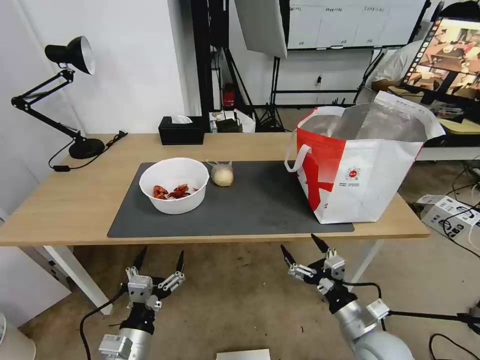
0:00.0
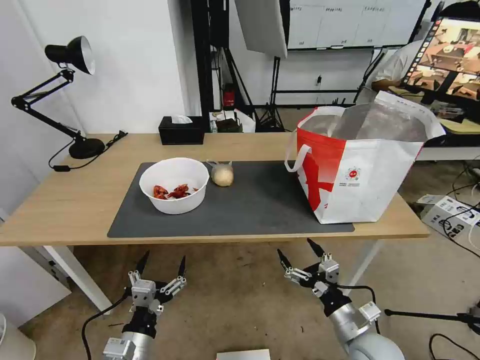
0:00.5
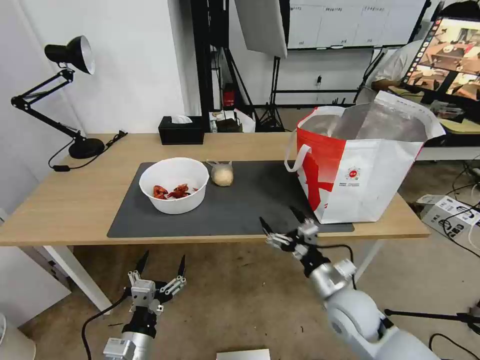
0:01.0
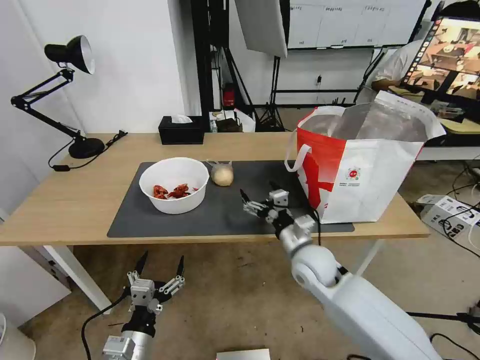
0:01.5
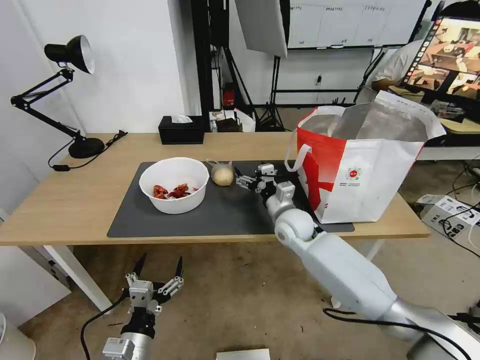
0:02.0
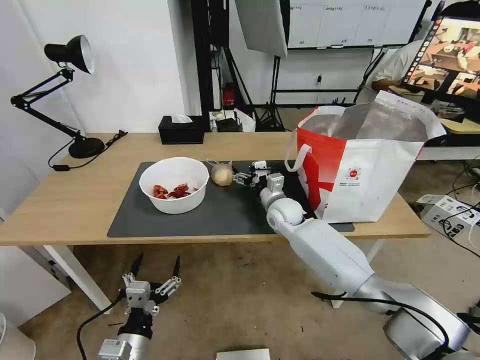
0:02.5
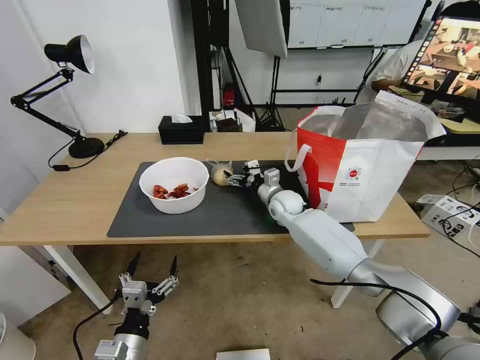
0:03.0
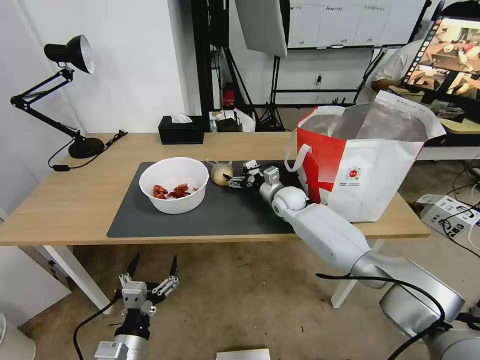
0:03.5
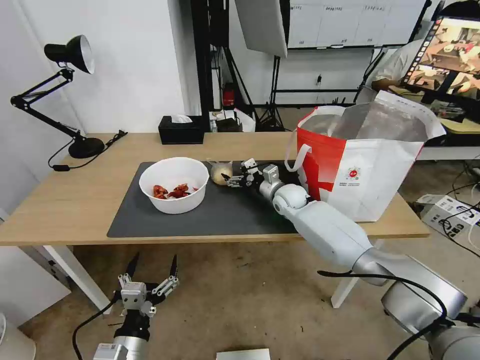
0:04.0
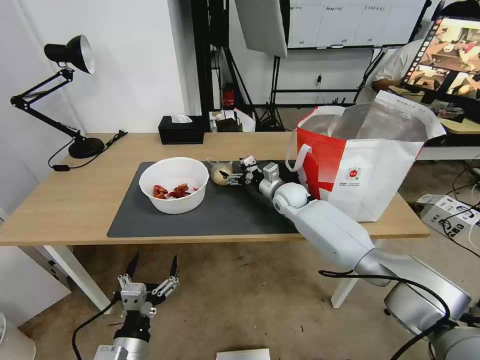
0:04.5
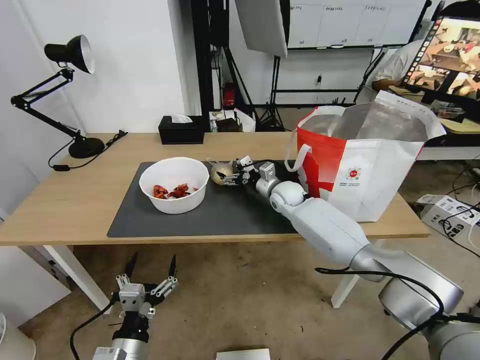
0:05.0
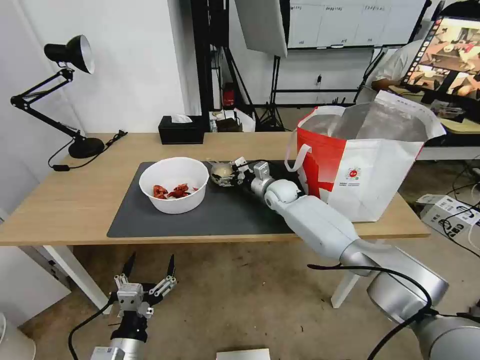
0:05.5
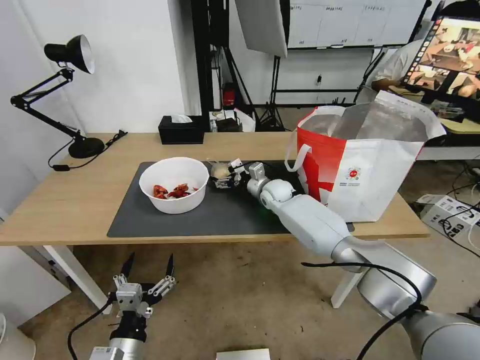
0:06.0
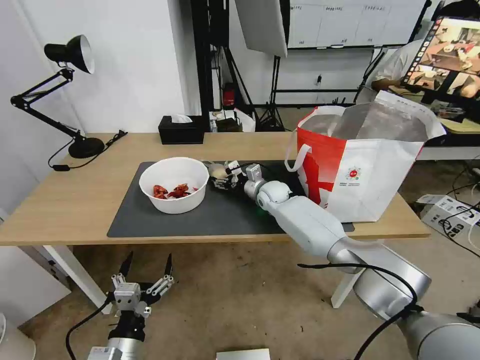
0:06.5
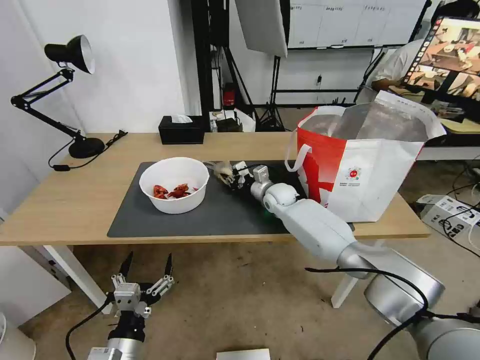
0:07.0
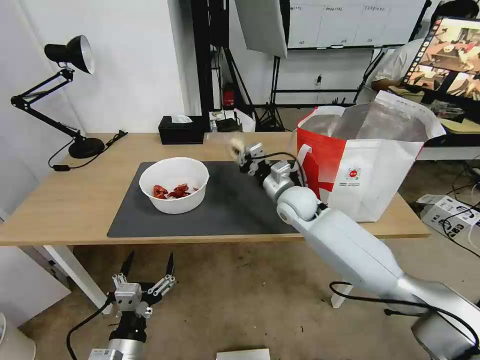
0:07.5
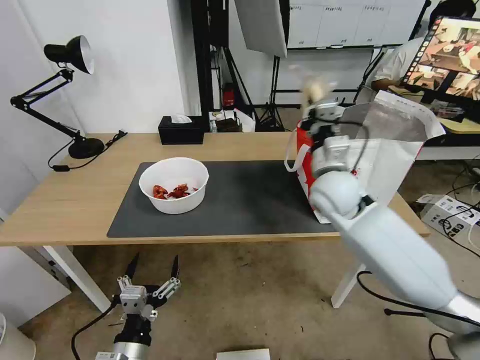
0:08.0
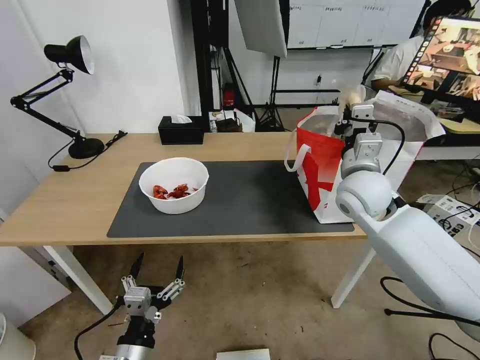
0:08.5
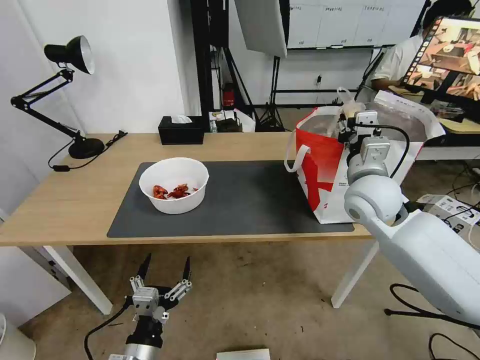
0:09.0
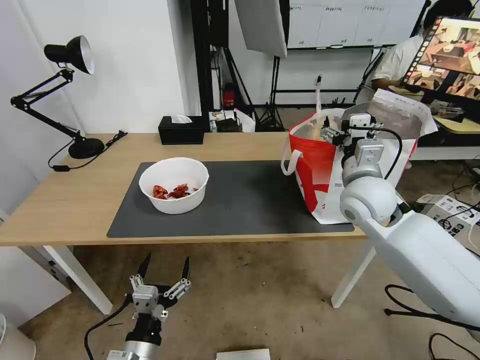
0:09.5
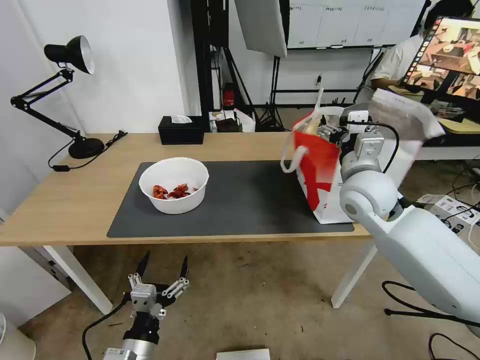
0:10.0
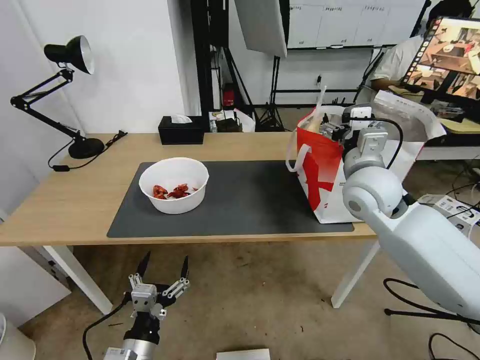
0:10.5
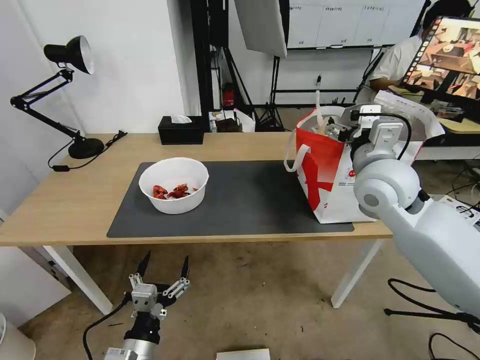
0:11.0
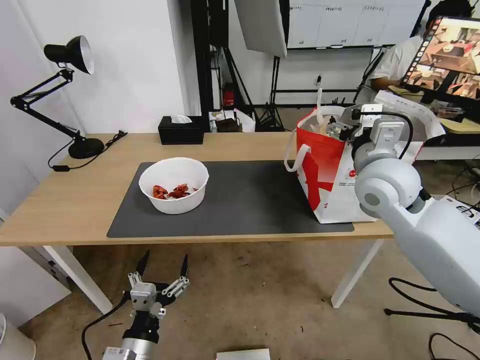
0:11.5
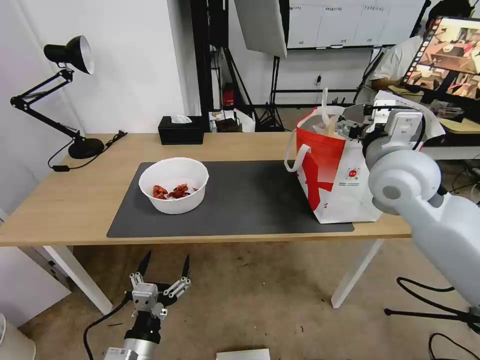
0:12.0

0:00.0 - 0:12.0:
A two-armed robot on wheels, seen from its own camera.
Task of the whole recording: Pick up the trash from the table and place it into the takeout bag.
0:00.0 - 0:02.0: The right gripper is displaced forward and to the left by roughly 30 cm.
0:02.0 - 0:04.0: The right gripper shifts some 10 cm forward.
0:04.0 - 0:06.0: The grippers make only small movements.
0:06.0 - 0:08.0: The right gripper moves upward, backward and to the right, roughly 25 cm, and closes.
0:08.0 - 0:10.0: The right gripper changes place by about 5 cm, and opens its fingers.
0:10.0 - 0:12.0: The right gripper shifts some 5 cm upward.

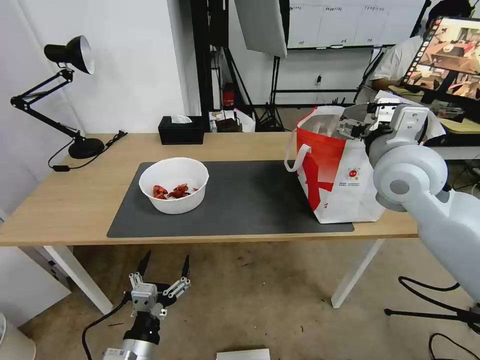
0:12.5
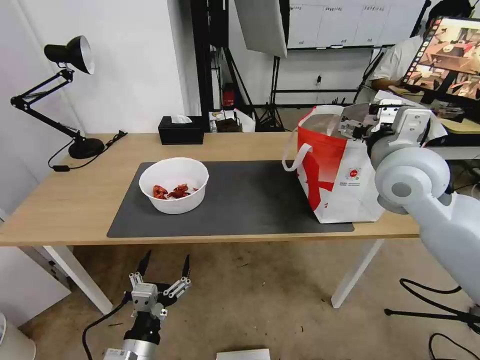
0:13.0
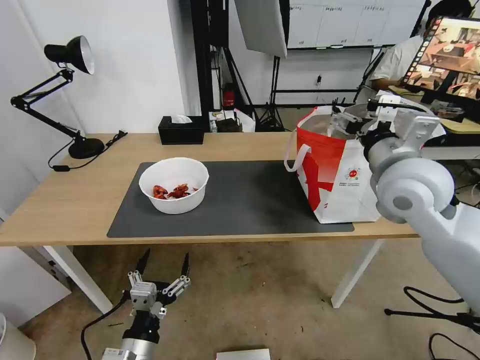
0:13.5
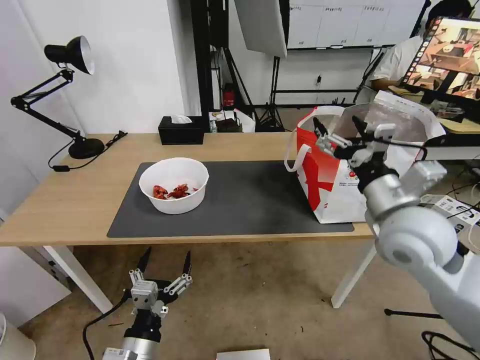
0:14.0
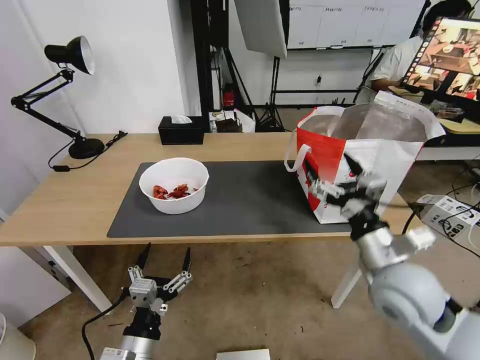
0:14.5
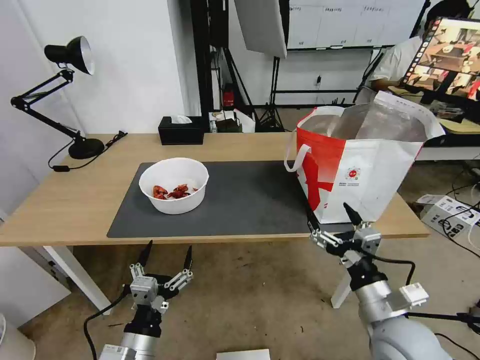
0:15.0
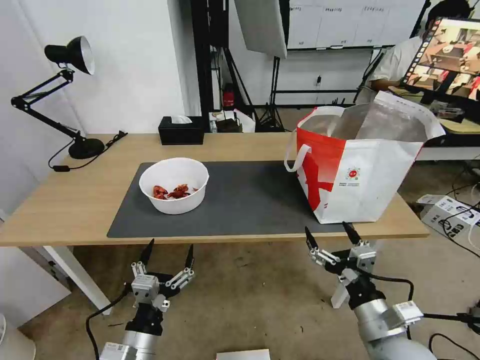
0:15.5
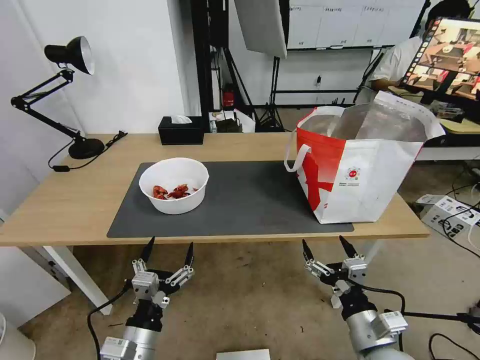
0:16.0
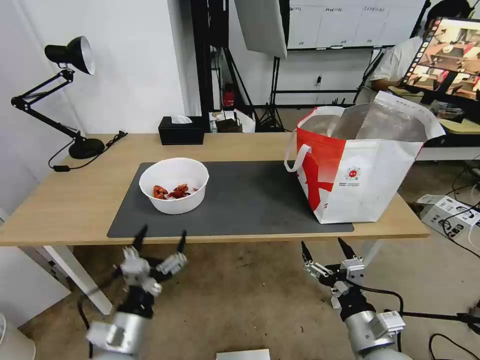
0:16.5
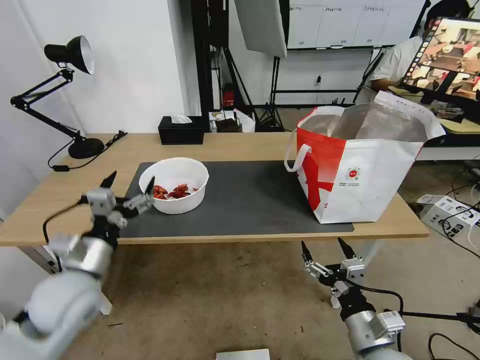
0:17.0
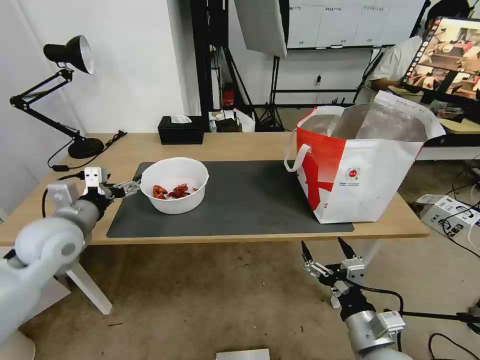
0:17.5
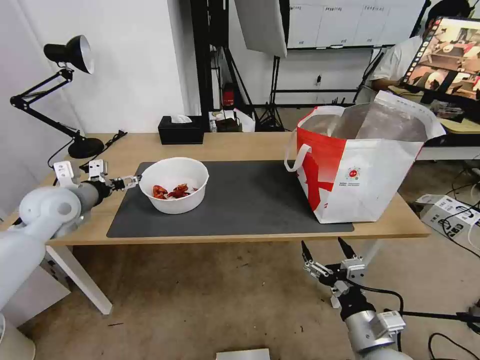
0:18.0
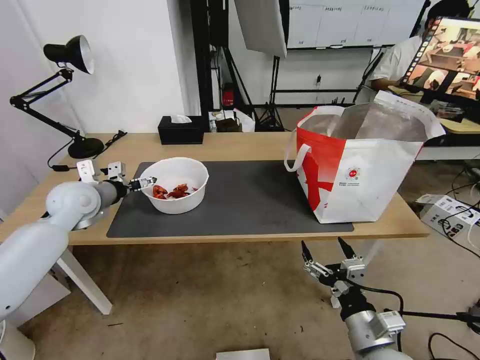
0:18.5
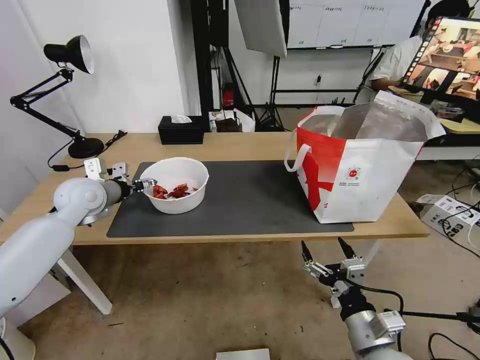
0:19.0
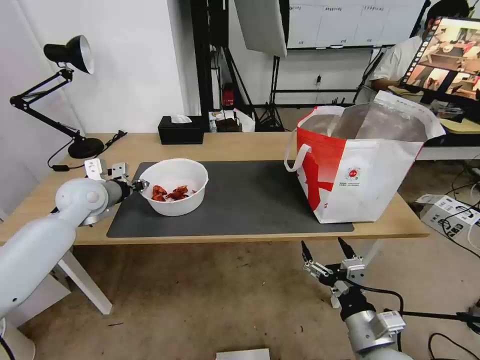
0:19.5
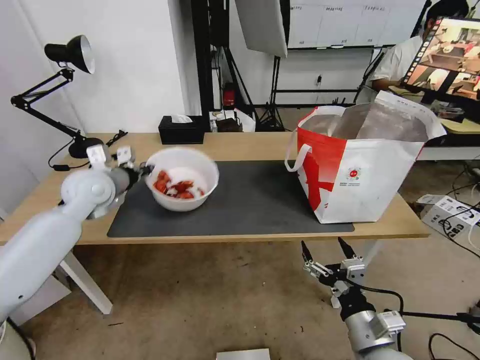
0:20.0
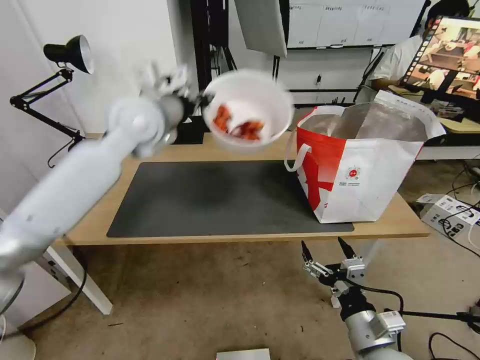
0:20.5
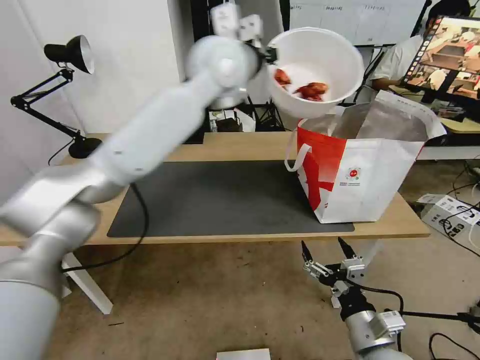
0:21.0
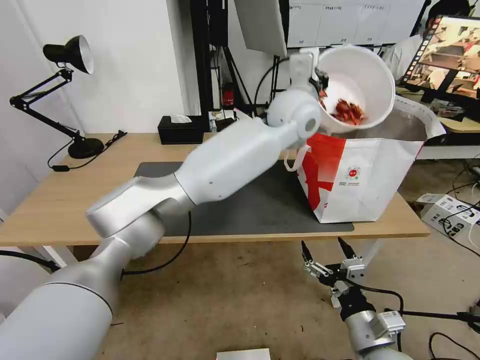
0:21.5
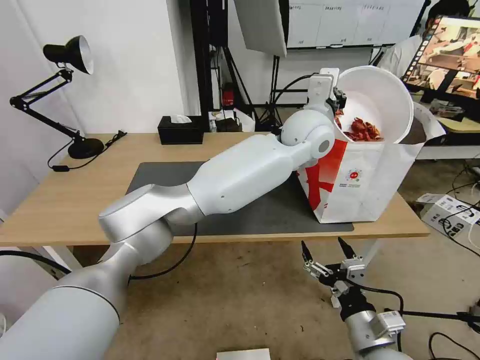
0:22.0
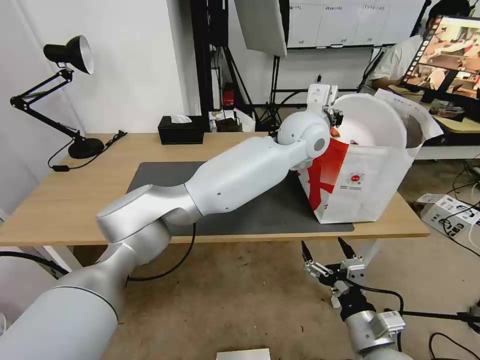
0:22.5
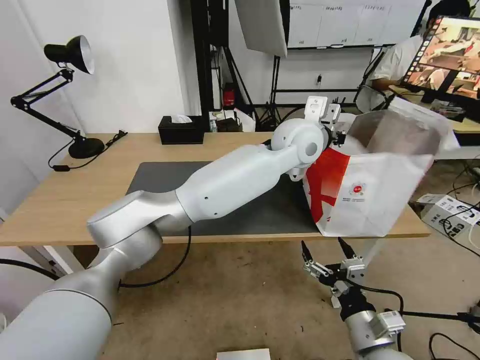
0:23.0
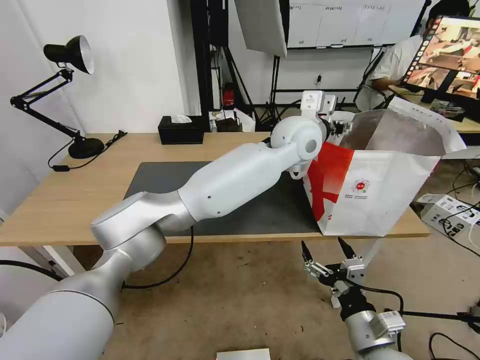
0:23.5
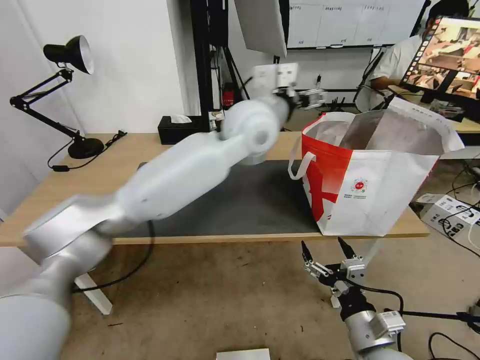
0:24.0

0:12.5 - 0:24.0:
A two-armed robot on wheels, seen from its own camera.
Task of the whole recording: Pick up the trash from the table and place it into the takeout bag.
0:12.5 - 0:14.5: The right gripper is displaced downward and backward by some 20 cm.
0:14.5 - 0:16.5: The right gripper is displaced downward and backward by some 15 cm.
0:16.5 - 0:18.5: The left gripper moves forward, to the left and upward, some 35 cm.
0:18.5 - 0:20.0: The left gripper changes place by some 5 cm, and closes.
0:20.0 - 0:22.0: The left gripper moves to the right, about 40 cm.
0:22.0 - 0:24.0: The left gripper shifts roughly 10 cm to the left, and opens its fingers.

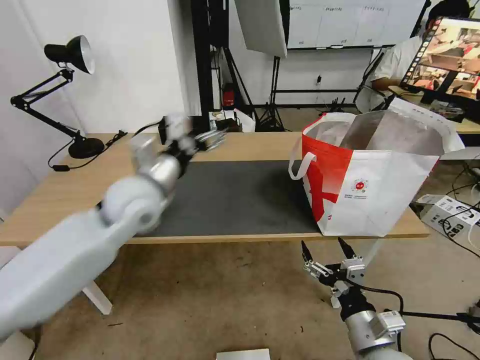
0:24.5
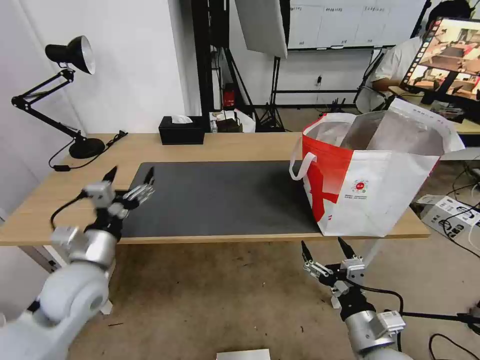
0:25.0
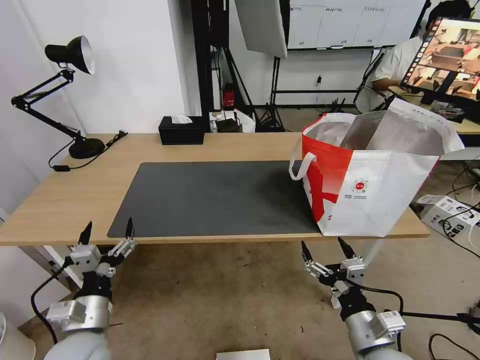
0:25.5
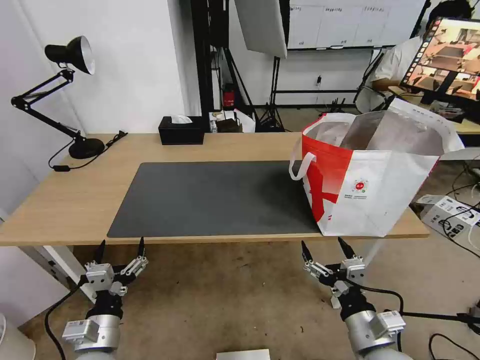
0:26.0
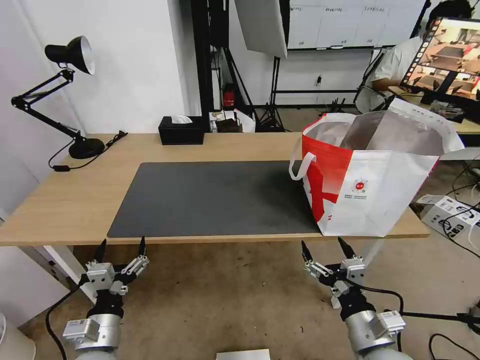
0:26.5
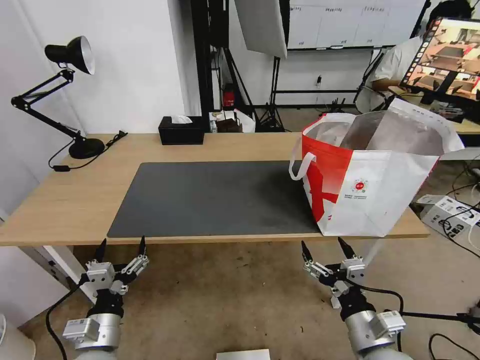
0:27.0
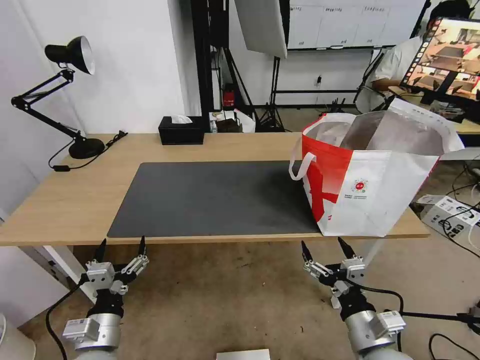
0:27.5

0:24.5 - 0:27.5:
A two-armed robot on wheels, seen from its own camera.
Task of the whole recording: Pick up the trash from the table and place it into the takeout bag.
0:24.5 - 0:26.0: The left gripper is displaced backward and downward by about 30 cm.
0:26.0 - 0:27.5: The two grippers keep their place.
